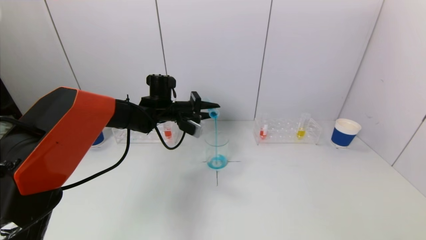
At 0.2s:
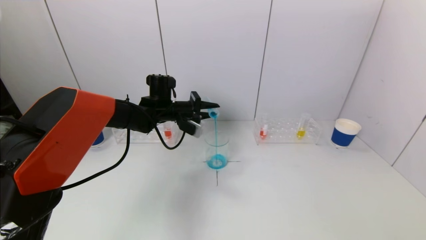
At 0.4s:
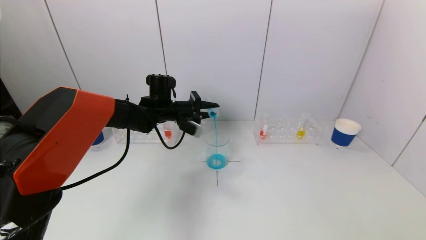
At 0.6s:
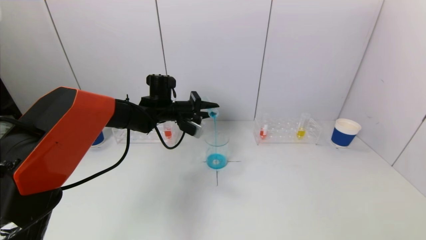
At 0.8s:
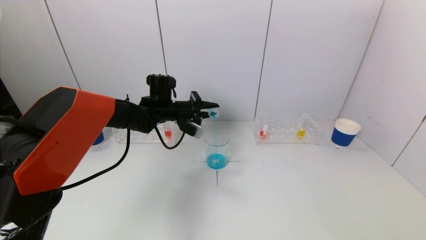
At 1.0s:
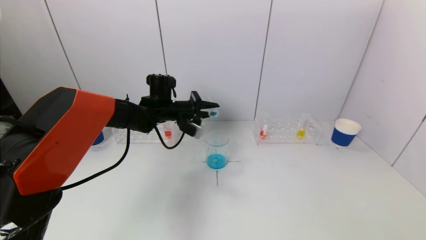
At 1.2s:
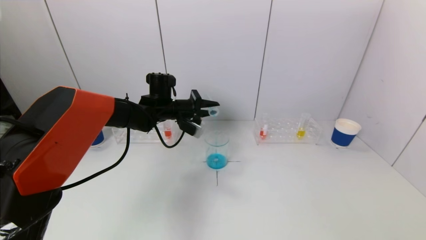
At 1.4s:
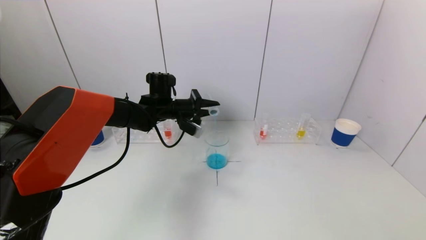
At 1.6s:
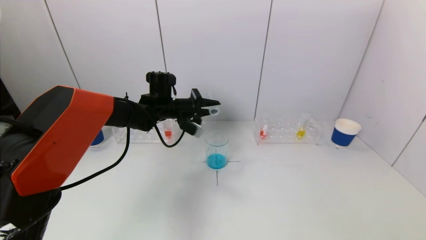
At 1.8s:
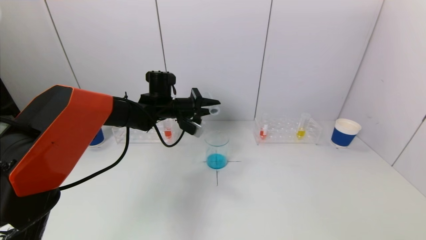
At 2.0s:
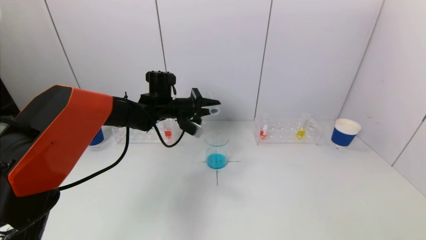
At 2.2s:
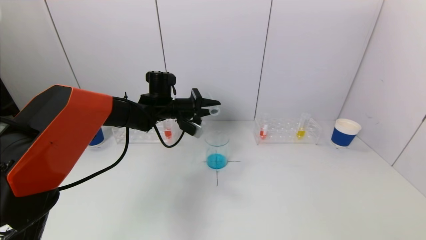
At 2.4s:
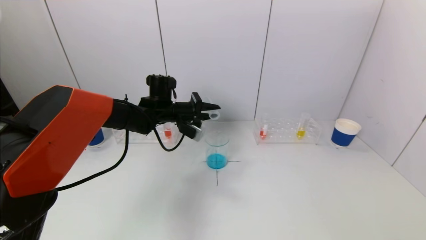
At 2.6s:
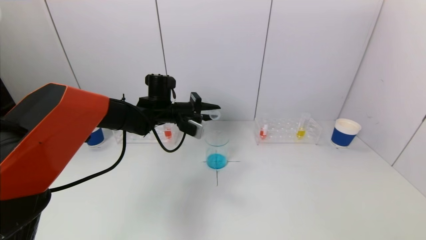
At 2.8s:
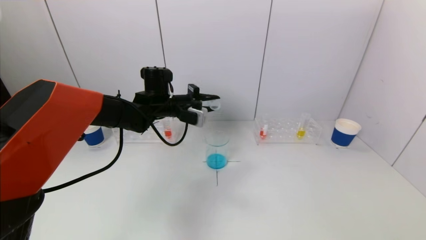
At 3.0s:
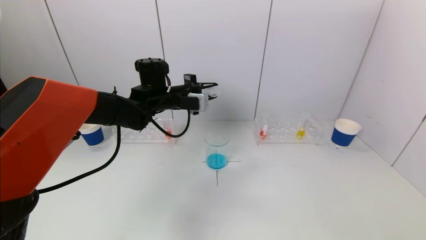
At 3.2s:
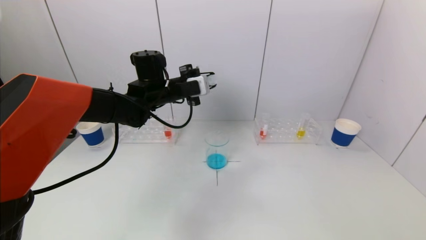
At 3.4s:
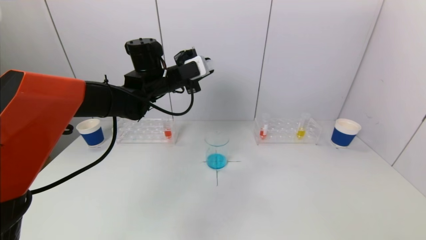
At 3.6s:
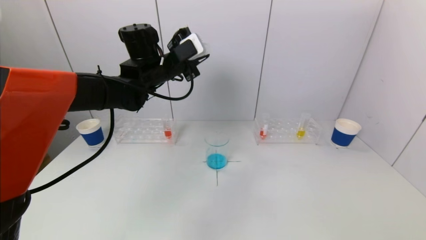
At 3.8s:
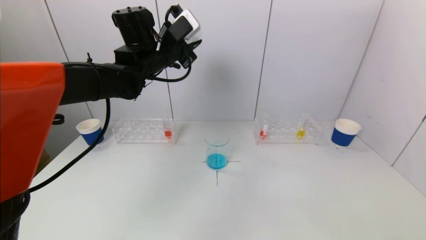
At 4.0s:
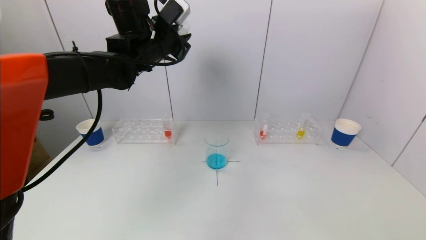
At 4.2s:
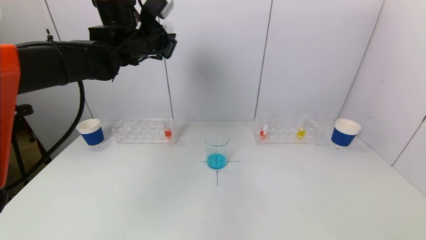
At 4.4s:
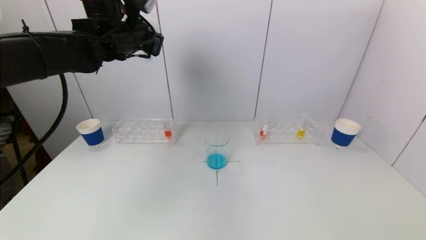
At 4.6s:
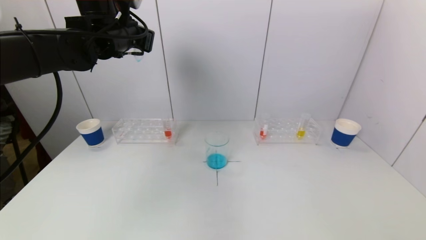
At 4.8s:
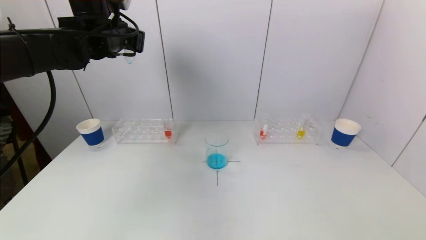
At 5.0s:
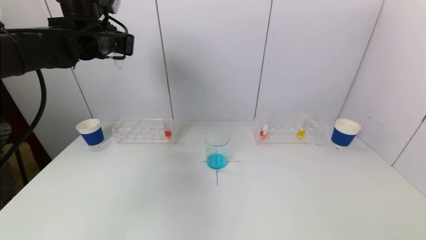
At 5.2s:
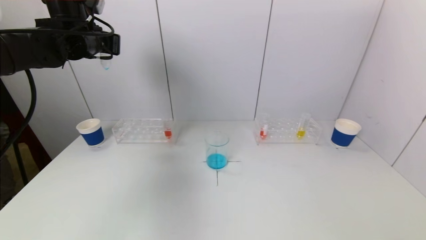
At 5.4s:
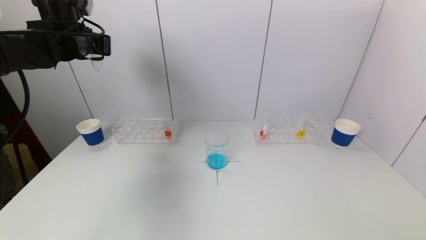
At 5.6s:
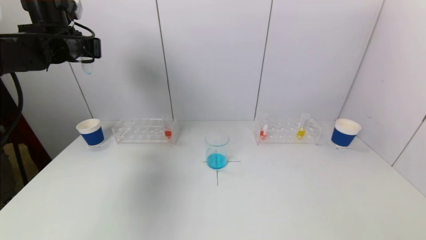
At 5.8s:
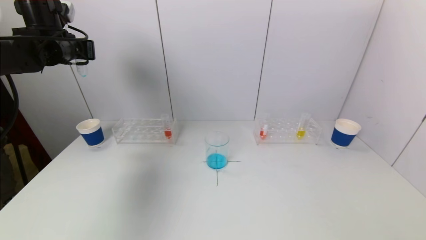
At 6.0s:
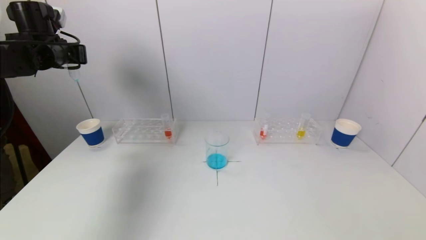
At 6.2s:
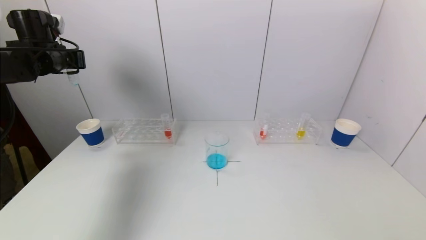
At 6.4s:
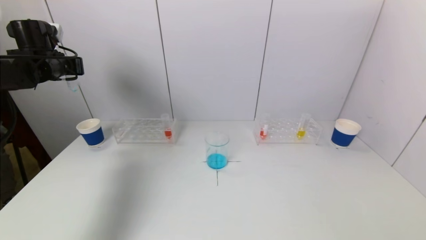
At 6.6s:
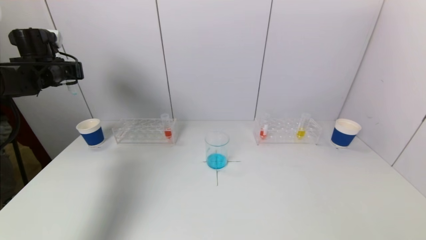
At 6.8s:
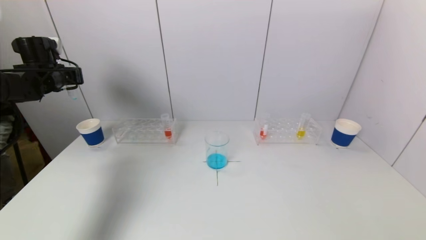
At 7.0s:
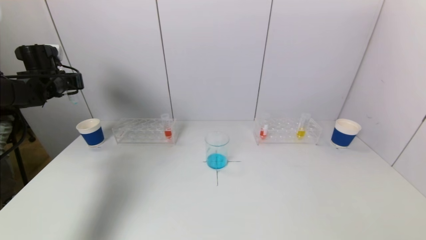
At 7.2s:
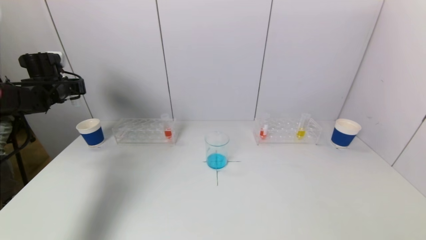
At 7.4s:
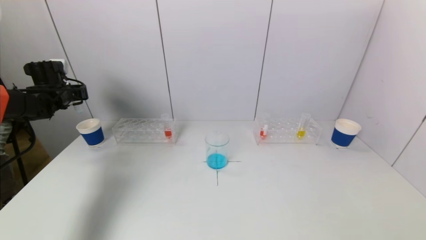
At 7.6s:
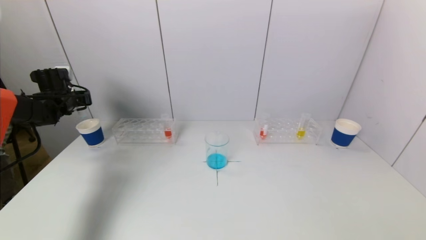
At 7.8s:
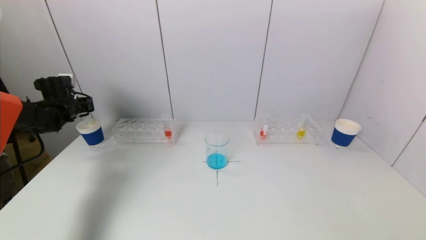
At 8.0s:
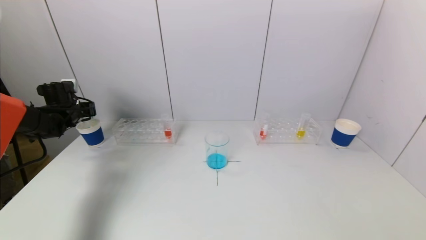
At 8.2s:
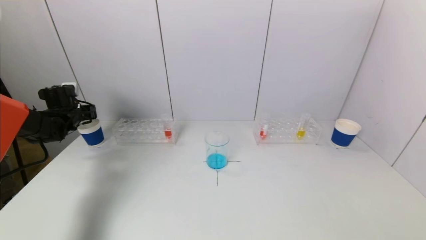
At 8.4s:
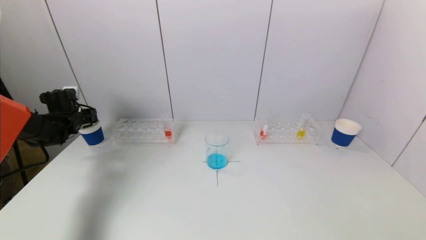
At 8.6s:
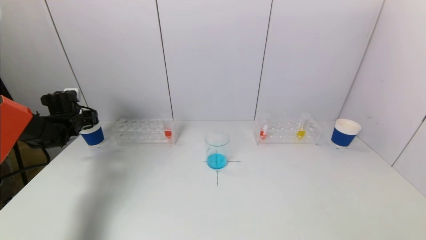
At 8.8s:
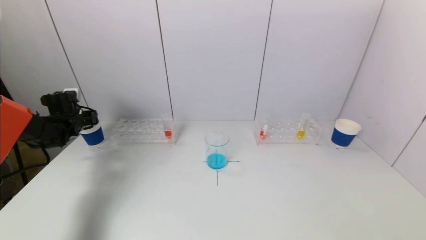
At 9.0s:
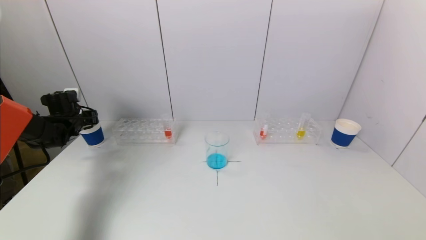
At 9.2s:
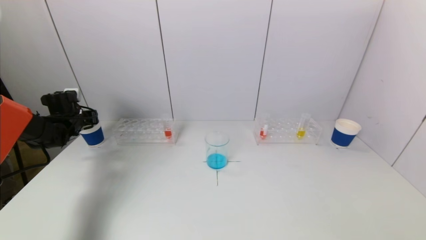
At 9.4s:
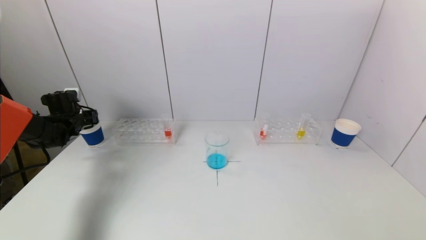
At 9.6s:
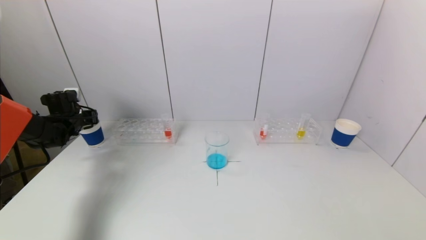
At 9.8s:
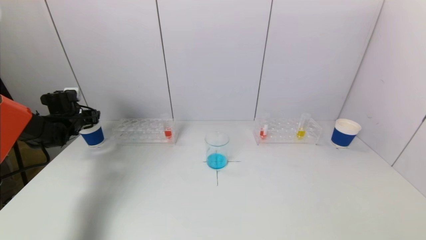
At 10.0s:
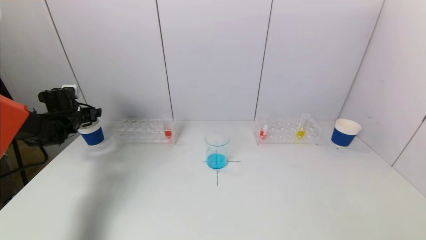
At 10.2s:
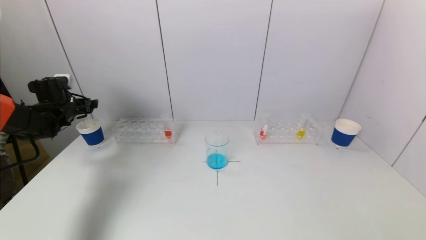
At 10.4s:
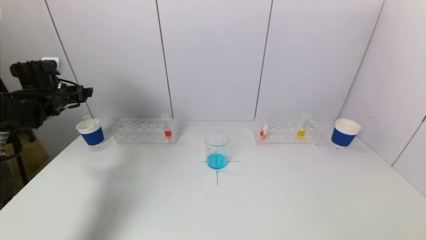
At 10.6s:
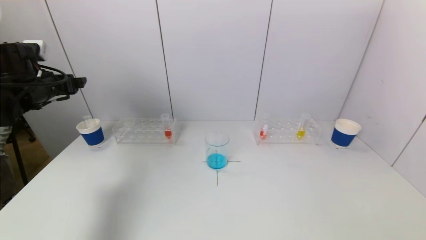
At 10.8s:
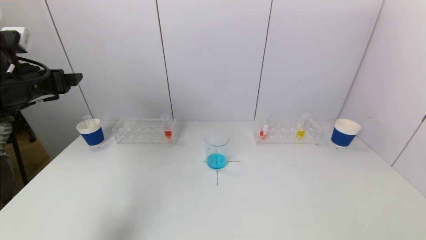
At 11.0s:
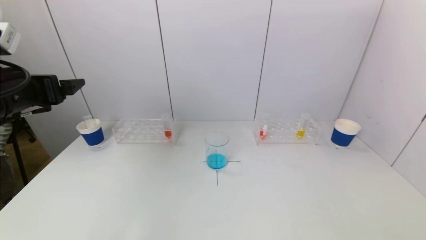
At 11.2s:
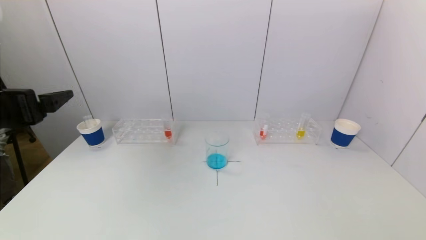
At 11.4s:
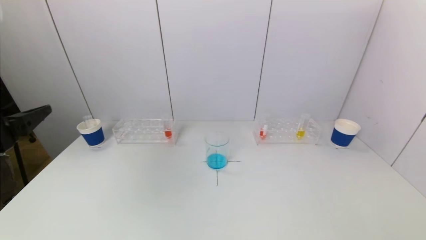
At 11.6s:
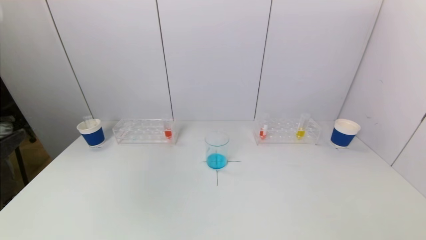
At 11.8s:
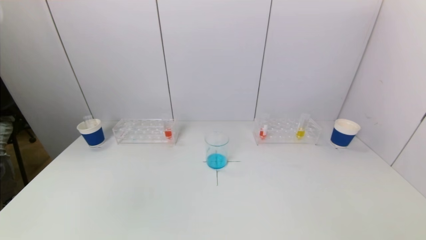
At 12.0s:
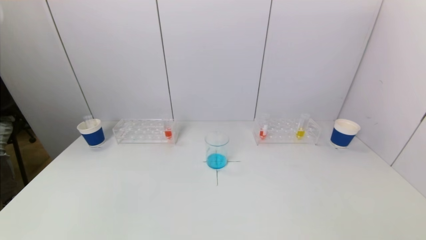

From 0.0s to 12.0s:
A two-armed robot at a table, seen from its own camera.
Task of the whole recording: pick up a test tube with pigment on left test tube rack and a test tube with pigment on right test tube rack by grippers and pour them into the beaker.
Step, from 0.0s to 2.2s: Pour the blue reagent into the graduated cylinder with the left gripper.
Step, from 2.4s to 9.8s: Place the test tube into the paper cup with the left gripper.
From 0.0s to 1.6s: The grippers stay close to where they were, moving slightly.
From 3.0s to 4.4s: The left gripper is displaced upward and to the left by roughly 15 cm.
From 4.4s to 6.0s: The left gripper heads to the left, covering approximately 15 cm.
From 6.0s to 7.6s: The left gripper goes roughly 15 cm downward and to the left.
From 7.6s to 9.0s: The left gripper is displaced downward by roughly 5 cm.
From 9.0s to 10.4s: The left gripper travels upward by approximately 10 cm, and opens its fingers.
From 10.4s to 12.0s: The left gripper goes approximately 40 cm backward.

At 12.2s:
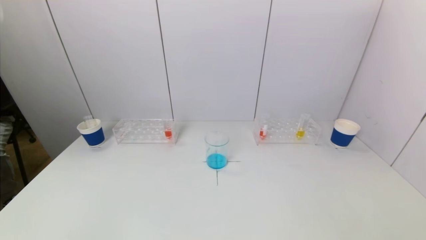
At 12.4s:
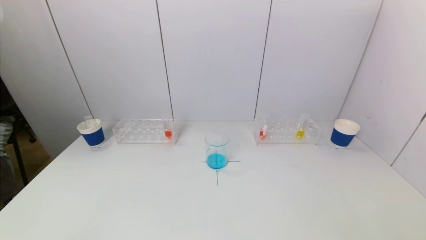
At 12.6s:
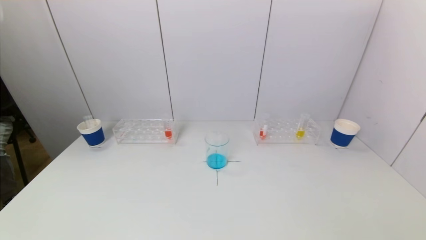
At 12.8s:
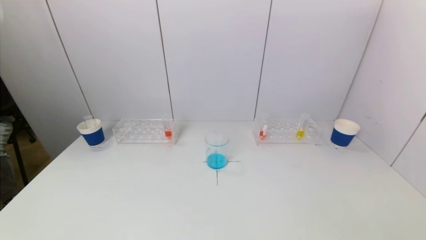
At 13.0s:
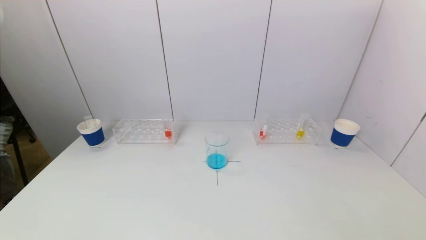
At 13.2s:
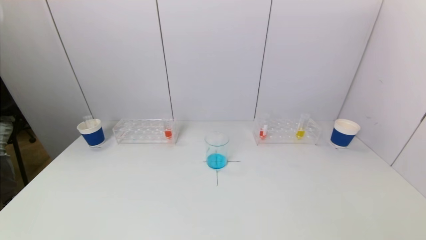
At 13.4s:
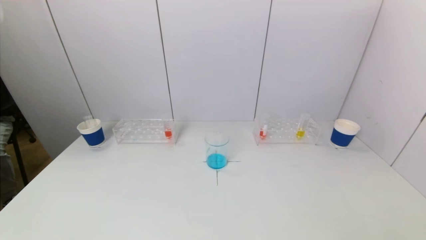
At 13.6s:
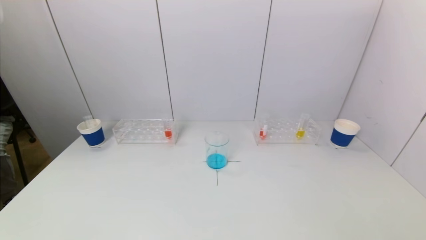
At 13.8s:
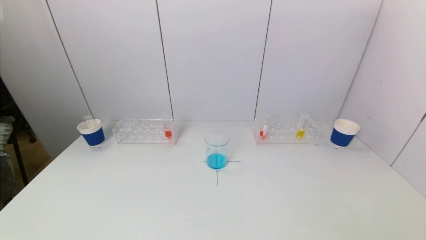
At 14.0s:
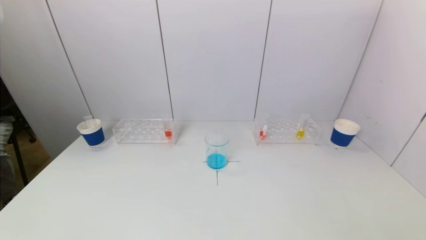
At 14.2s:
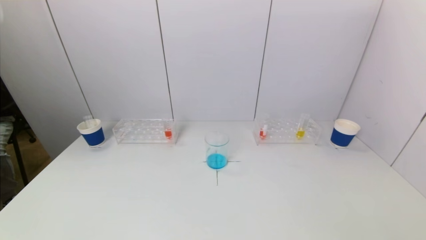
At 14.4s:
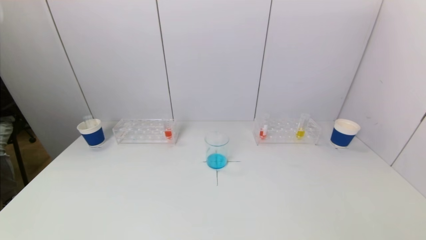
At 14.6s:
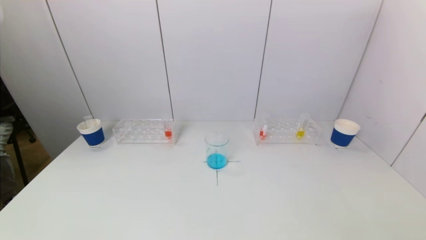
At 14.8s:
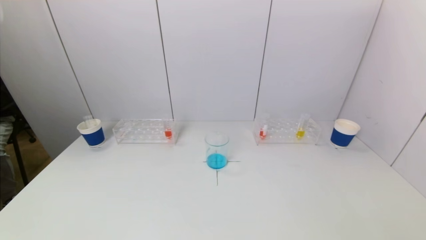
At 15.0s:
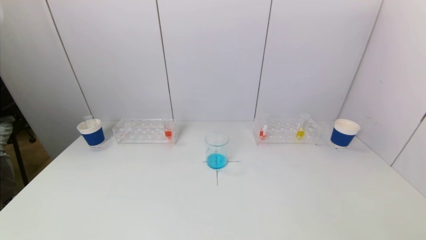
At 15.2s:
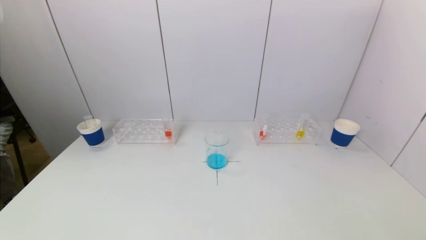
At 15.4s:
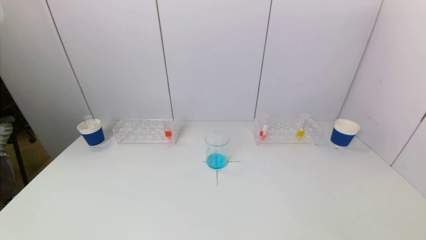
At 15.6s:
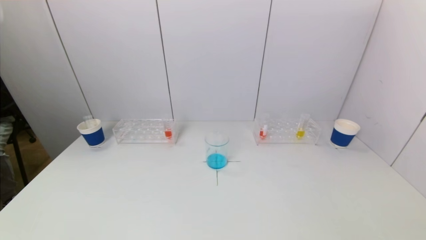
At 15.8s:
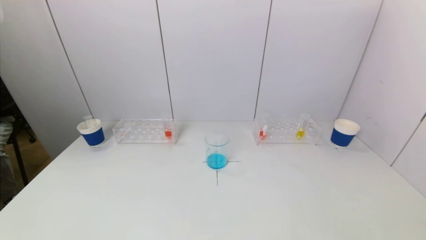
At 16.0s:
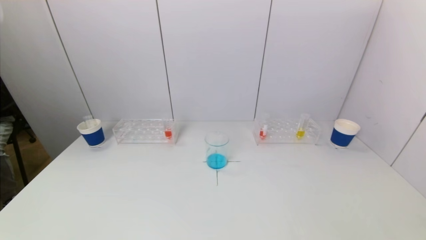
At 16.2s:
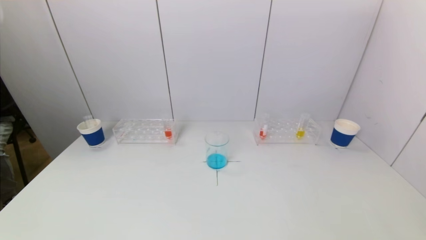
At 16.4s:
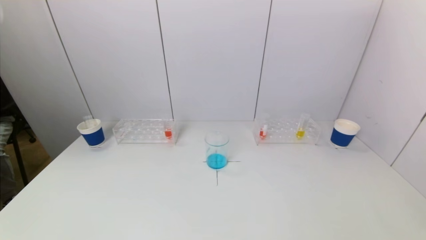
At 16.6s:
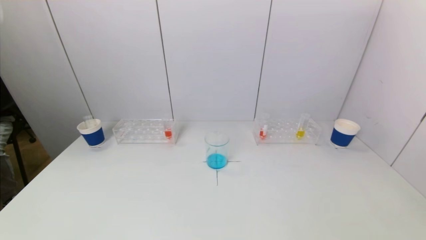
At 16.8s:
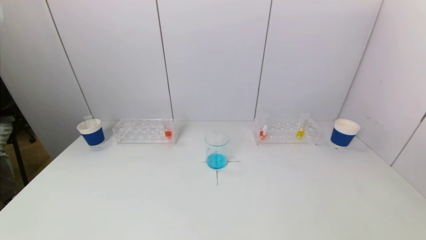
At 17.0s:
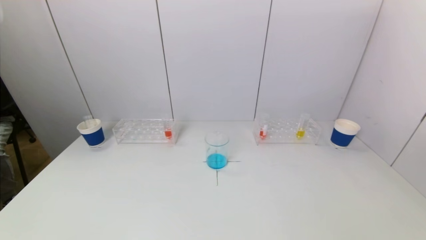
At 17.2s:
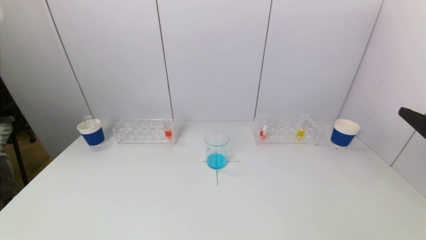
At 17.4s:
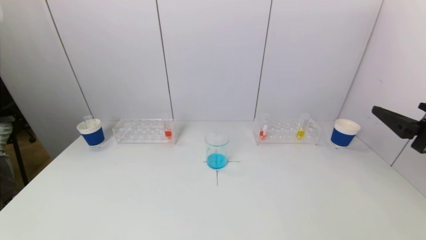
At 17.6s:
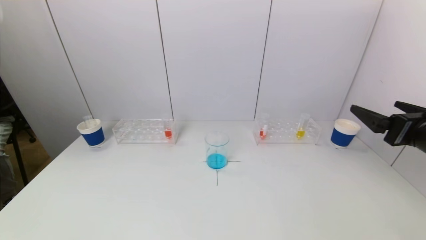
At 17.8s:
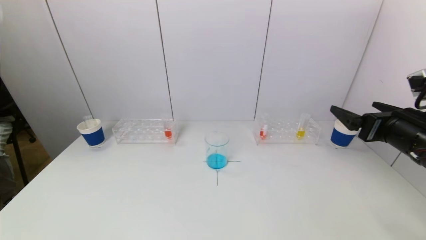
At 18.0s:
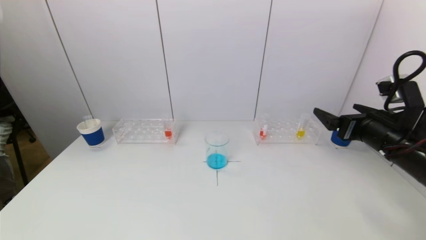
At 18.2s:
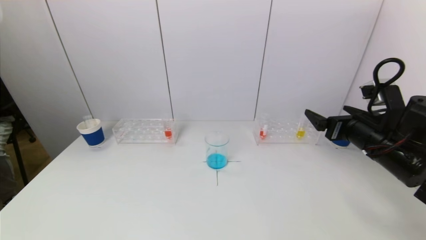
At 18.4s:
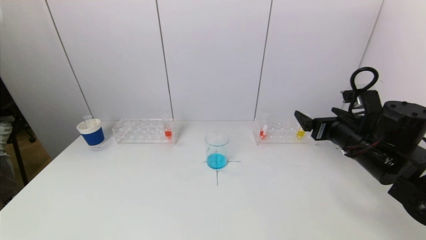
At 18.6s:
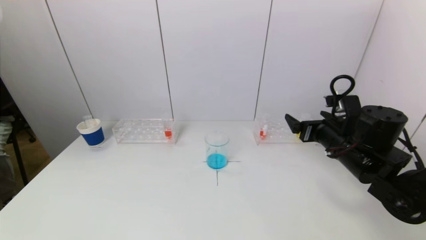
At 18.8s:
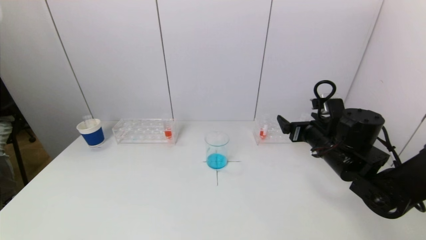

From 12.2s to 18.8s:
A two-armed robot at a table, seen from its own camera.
Task of the whole recording: pick up a test tube with pigment on left test tube rack and a test tube with pigment on right test tube rack by grippers and pour them into the beaker.
From 15.4s to 17.2s: The right gripper goes approximately 20 cm forward and upward.
From 17.2s to 18.8s: The right gripper moves forward, downward and to the left, about 25 cm.
